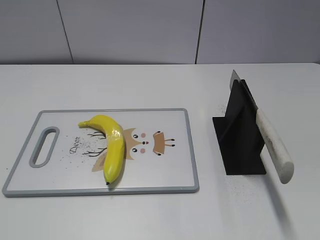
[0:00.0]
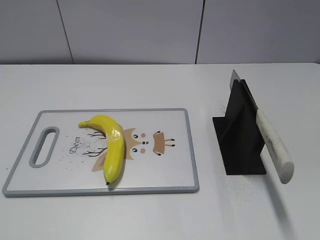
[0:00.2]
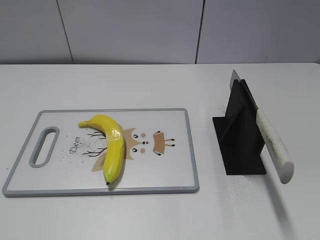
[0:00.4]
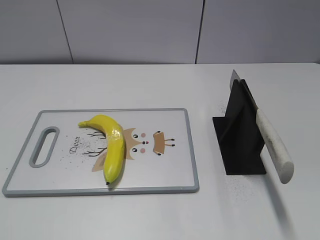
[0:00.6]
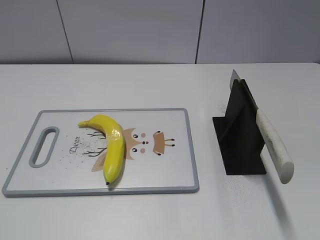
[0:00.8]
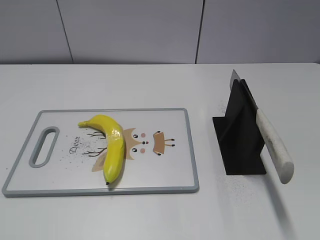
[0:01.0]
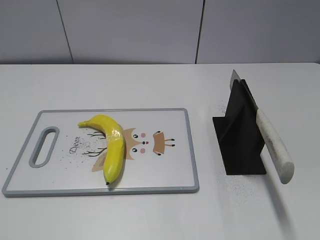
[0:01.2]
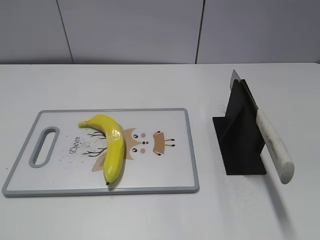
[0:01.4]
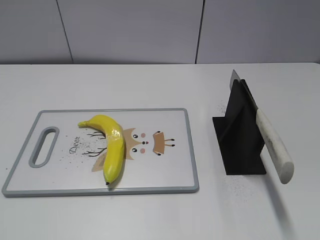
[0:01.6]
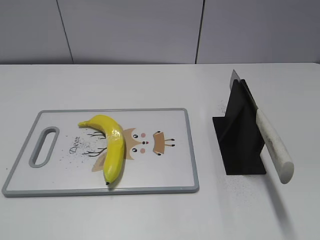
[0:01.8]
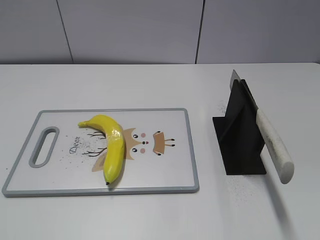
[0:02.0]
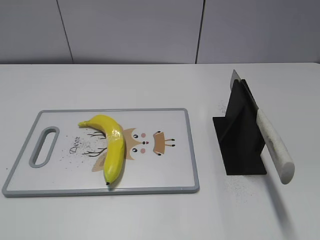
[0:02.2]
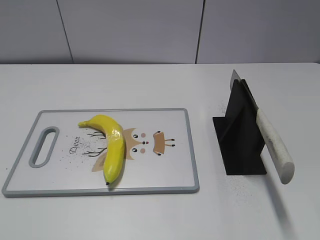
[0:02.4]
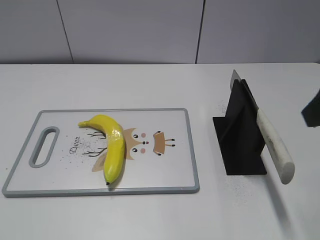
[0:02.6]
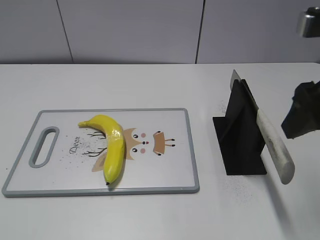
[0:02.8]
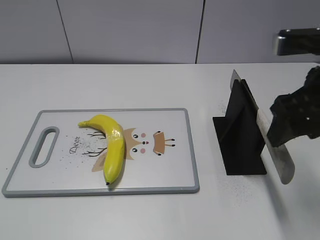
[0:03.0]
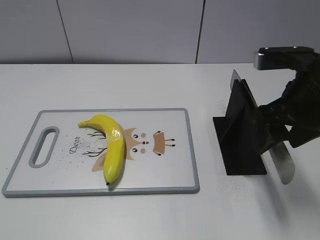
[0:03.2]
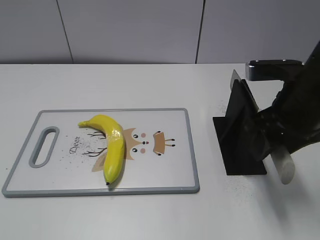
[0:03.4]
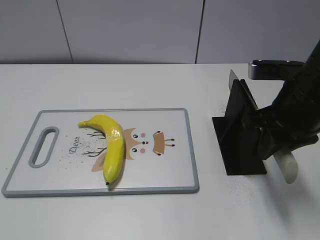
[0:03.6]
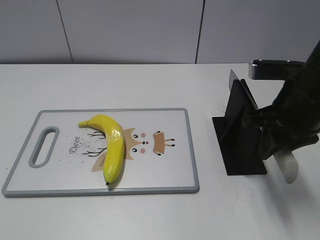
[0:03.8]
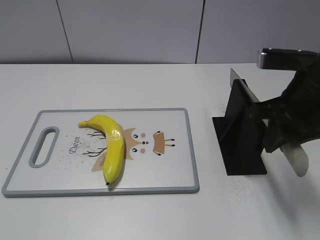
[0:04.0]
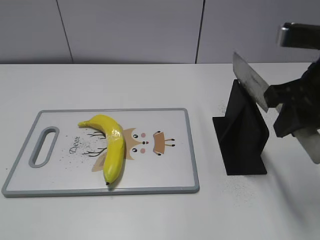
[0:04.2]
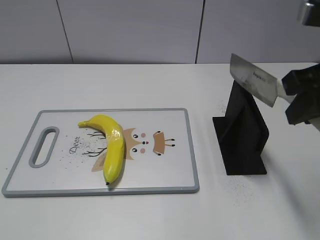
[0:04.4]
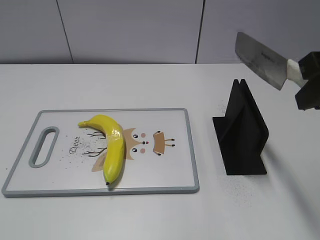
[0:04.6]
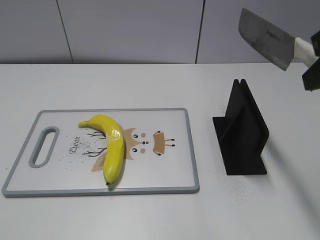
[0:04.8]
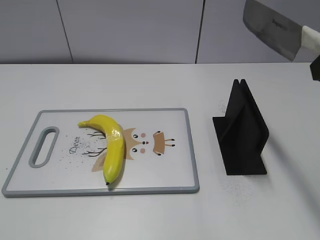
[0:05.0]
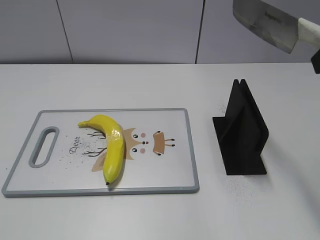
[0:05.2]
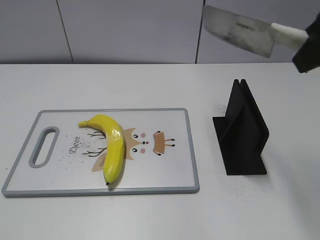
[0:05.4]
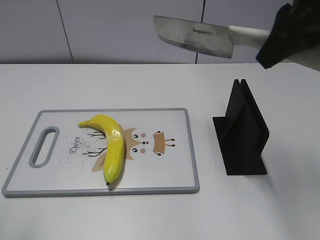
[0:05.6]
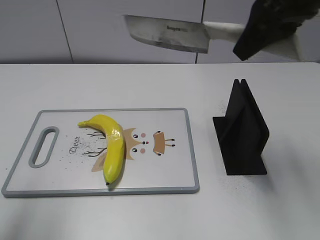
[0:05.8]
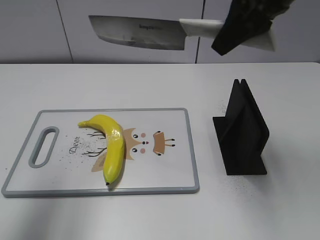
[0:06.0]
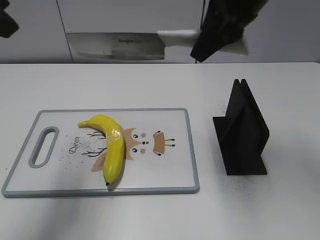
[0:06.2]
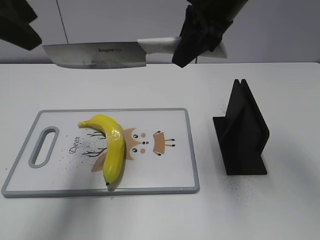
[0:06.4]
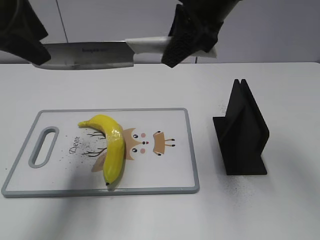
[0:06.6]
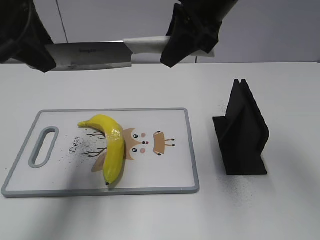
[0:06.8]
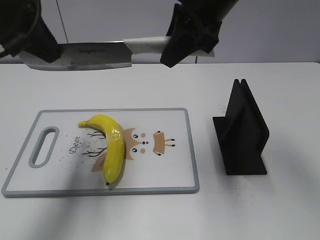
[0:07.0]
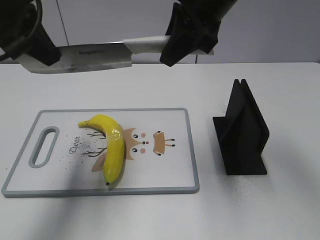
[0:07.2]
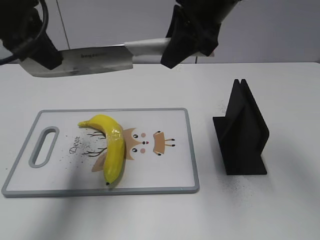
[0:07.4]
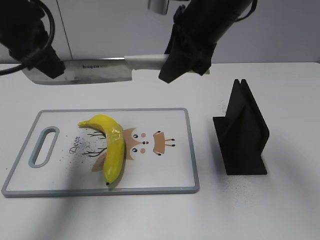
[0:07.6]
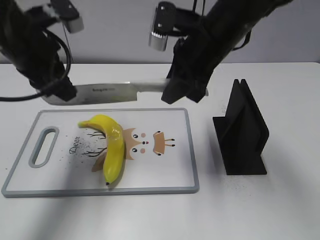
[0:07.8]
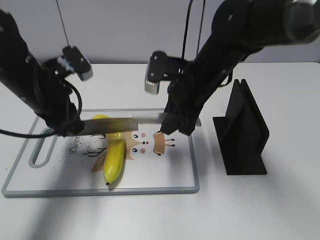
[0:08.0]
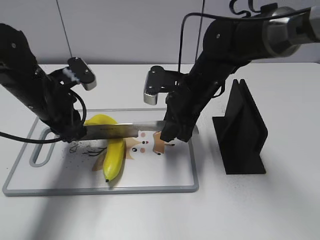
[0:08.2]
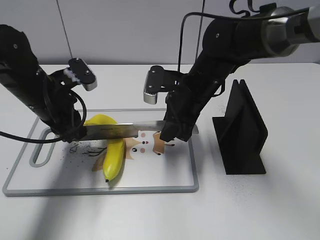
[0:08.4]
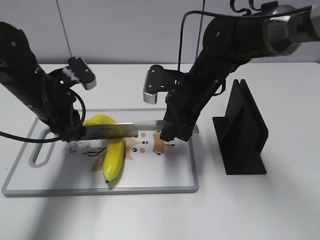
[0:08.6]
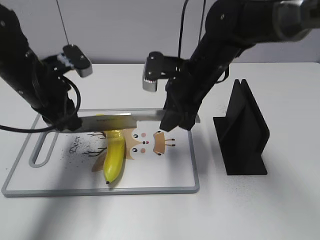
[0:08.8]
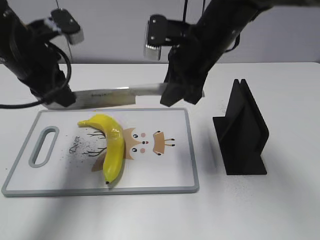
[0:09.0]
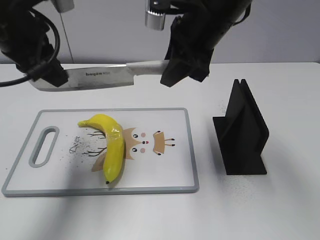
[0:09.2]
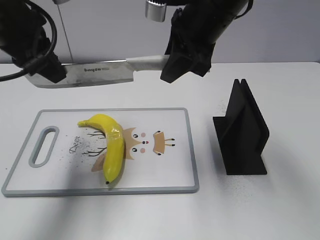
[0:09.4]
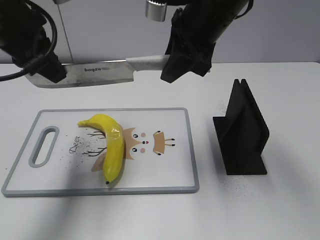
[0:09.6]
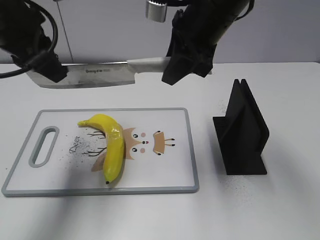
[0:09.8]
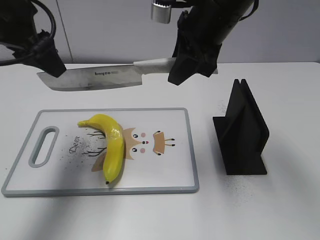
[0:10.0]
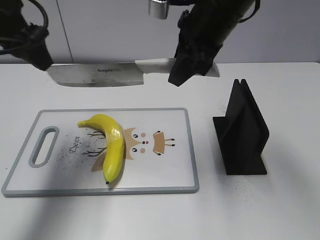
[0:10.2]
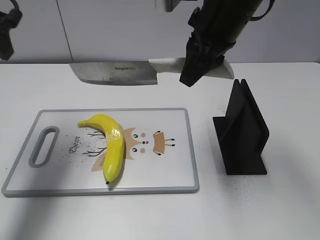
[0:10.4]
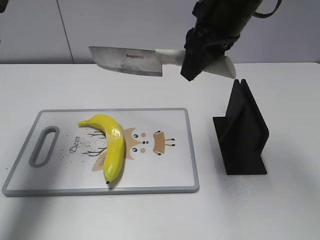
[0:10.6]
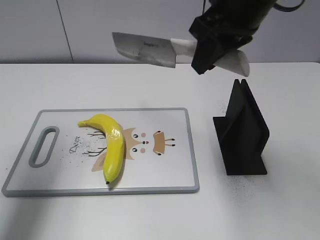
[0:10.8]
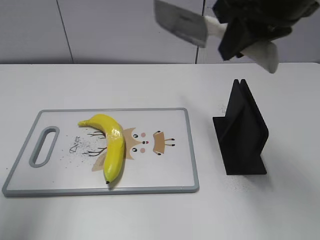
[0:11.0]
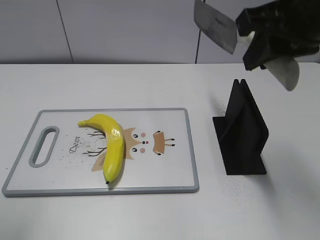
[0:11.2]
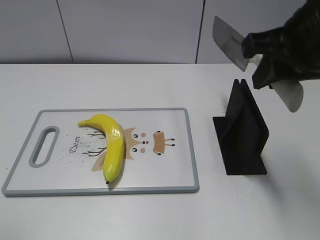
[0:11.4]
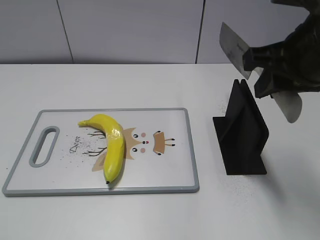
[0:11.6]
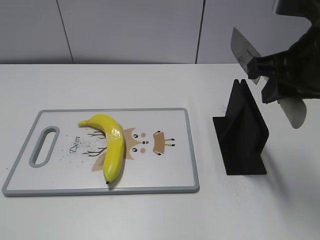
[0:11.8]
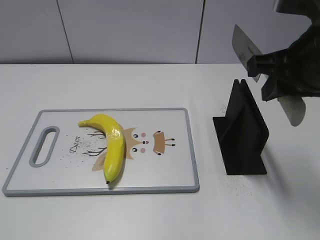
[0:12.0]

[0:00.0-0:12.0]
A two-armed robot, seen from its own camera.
Task of the whole recording: cut plastic banana.
Step, 0:00.0 to 0:04.6: Grab the knife handle with your right hand.
Step, 0:04.8 to 0:08.6: Lift the knife with your right hand.
Step, 0:09.0 to 0:10.2: Cut the banana with your left hand.
0:01.6 to 0:03.0: The right gripper shifts roughly 25 cm forward and to the left.
0:03.0 to 0:04.4: The right gripper goes downward and returns, about 5 cm each way, and closes up.
0:04.4 to 0:06.0: The right gripper travels forward, to the left and upward by approximately 15 cm, while the left gripper heads forward and upward, covering roughly 25 cm.
0:06.0 to 0:07.6: The left gripper goes about 15 cm forward, downward and to the right, and closes its fingers; the right gripper heads to the left and downward, covering some 10 cm.
0:07.6 to 0:09.0: The two grippers go approximately 5 cm downward.
0:09.0 to 0:10.4: The left gripper heads upward and to the left, covering some 10 cm, and opens up, while the right gripper is displaced upward by approximately 5 cm.
0:10.4 to 0:12.0: The left gripper goes approximately 35 cm backward; the right gripper moves backward and to the right, roughly 15 cm.

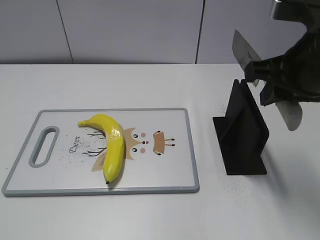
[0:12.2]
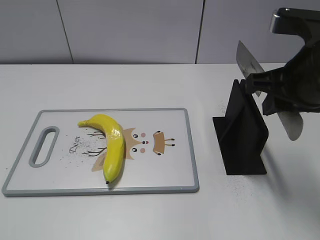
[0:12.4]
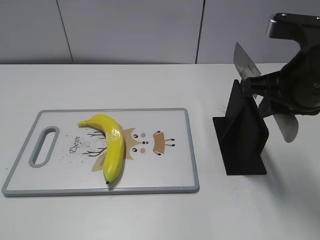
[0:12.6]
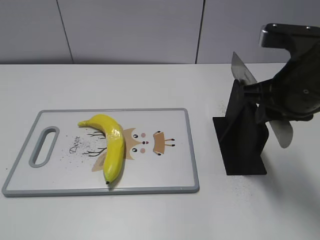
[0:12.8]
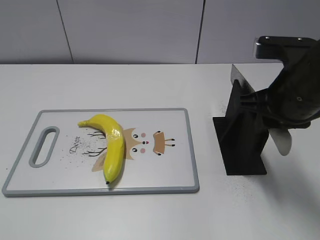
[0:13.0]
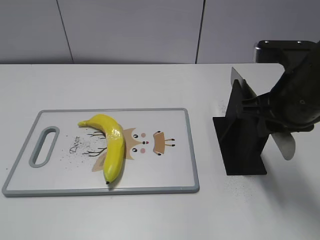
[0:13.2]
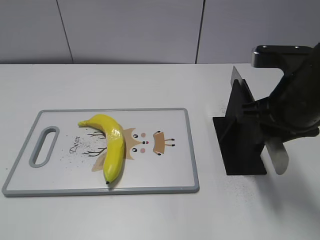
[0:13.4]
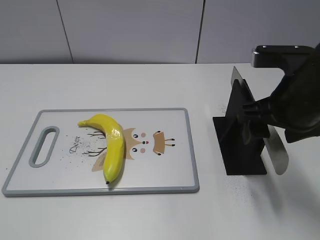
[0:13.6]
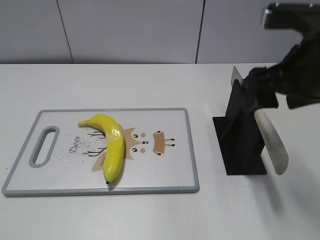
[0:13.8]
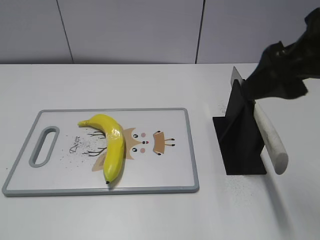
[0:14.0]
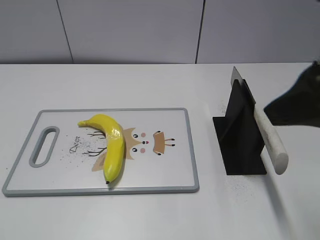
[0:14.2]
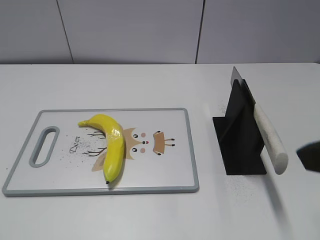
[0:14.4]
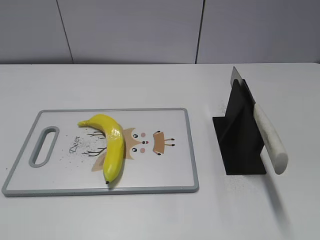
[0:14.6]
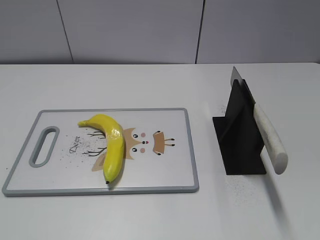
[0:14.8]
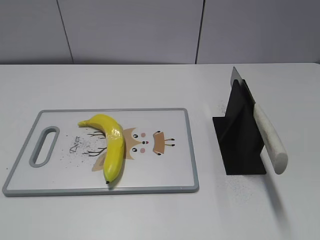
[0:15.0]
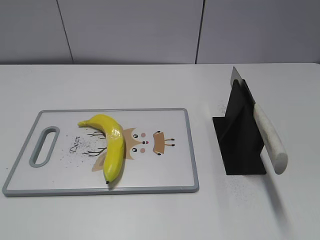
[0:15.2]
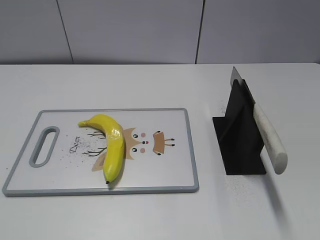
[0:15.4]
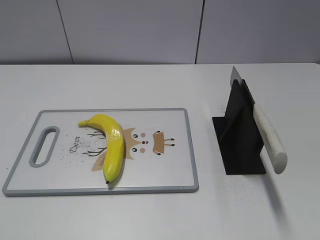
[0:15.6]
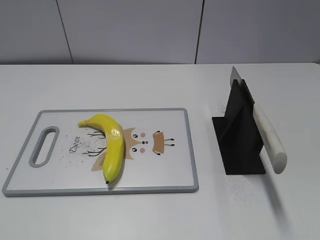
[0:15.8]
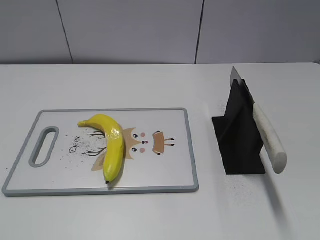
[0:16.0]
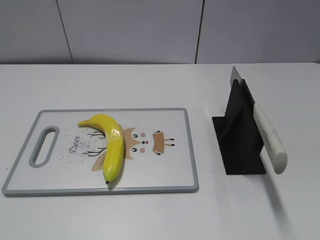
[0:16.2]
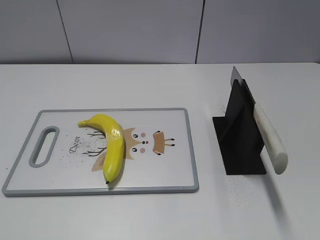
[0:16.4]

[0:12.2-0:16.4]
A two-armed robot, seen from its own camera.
Task of the whole recording: cut plastic banana.
Step, 0:12.2 to 0:16.4: Place the knife on the storage rack with your right hand.
0:12.2 to 0:13.6: The right gripper is displaced downward by some 5 cm, and opens up.
0:13.6 to 0:15.0: The right gripper moves backward and to the right, about 25 cm.
